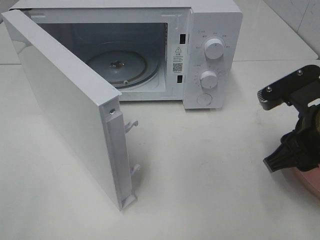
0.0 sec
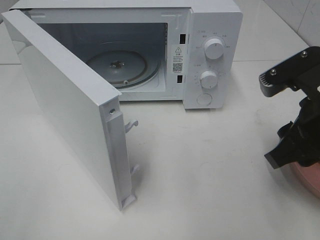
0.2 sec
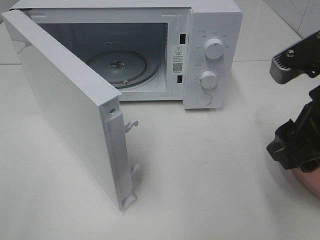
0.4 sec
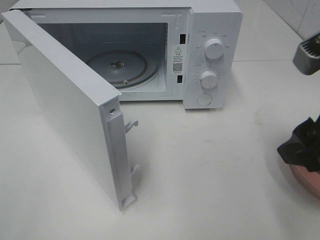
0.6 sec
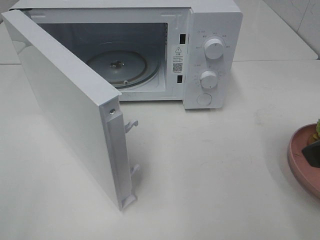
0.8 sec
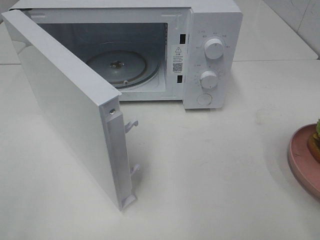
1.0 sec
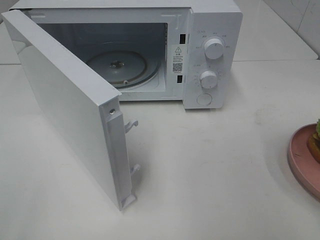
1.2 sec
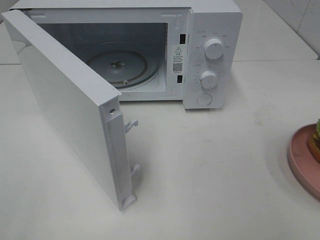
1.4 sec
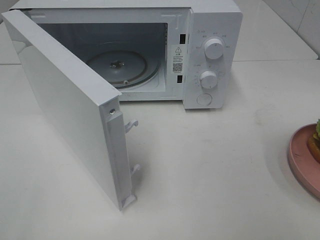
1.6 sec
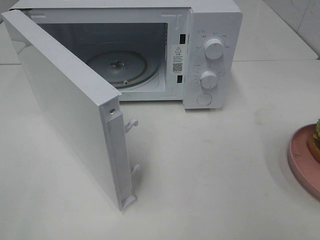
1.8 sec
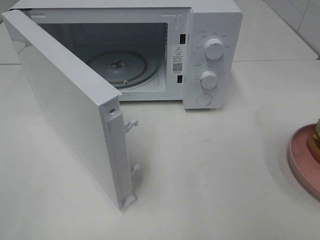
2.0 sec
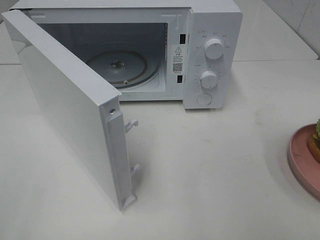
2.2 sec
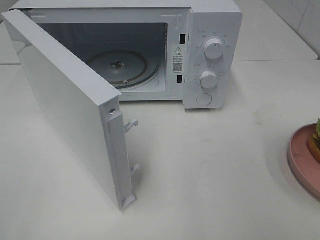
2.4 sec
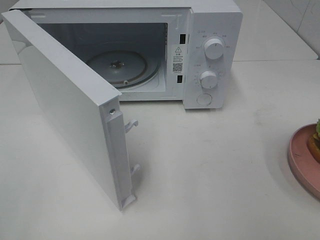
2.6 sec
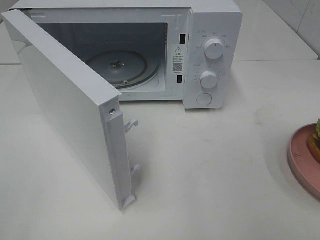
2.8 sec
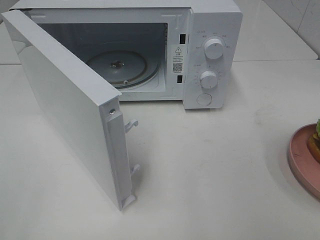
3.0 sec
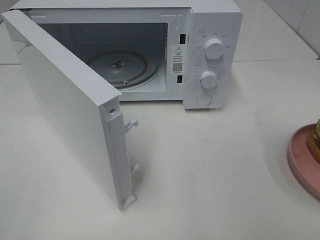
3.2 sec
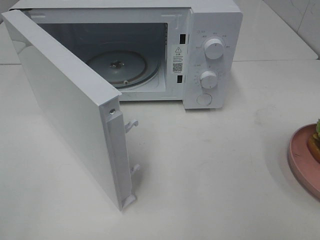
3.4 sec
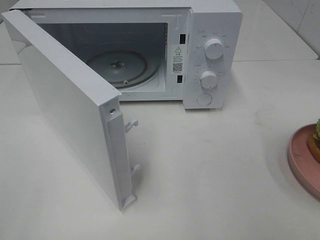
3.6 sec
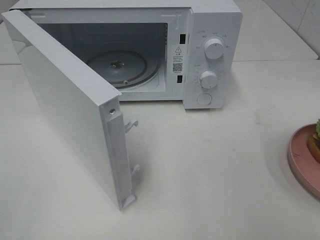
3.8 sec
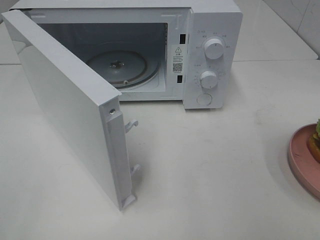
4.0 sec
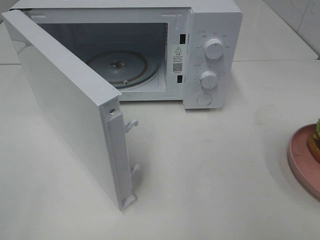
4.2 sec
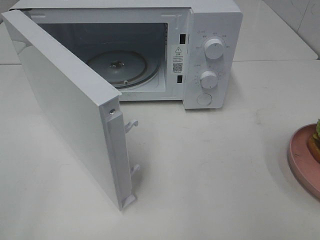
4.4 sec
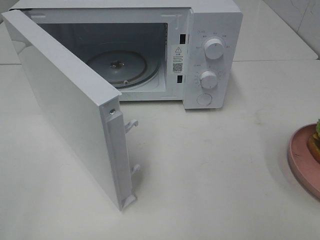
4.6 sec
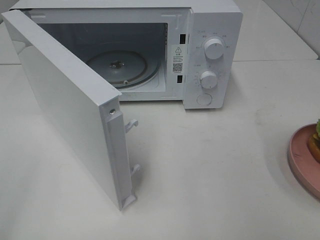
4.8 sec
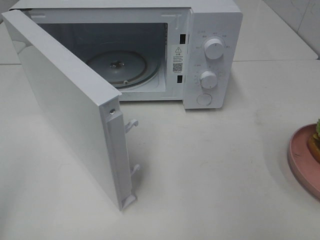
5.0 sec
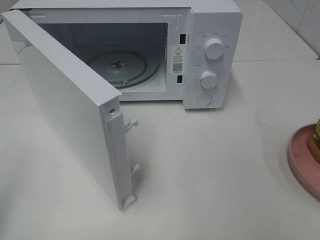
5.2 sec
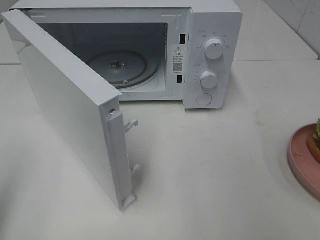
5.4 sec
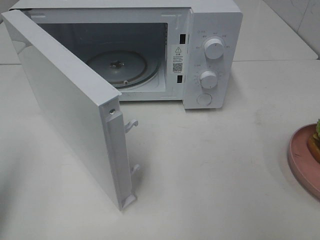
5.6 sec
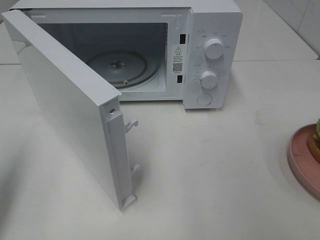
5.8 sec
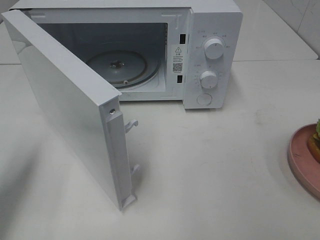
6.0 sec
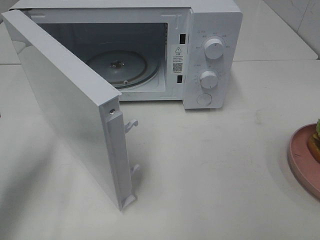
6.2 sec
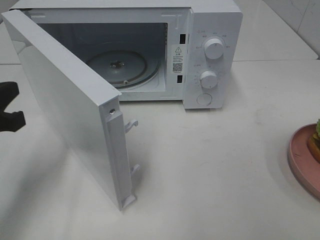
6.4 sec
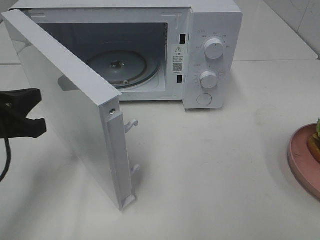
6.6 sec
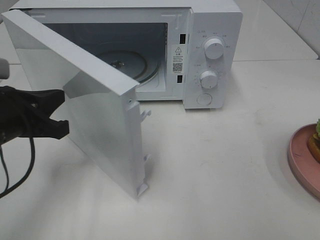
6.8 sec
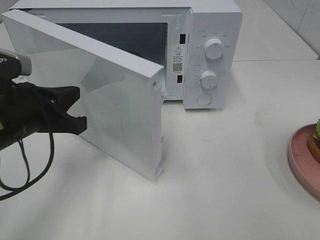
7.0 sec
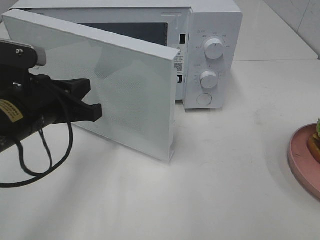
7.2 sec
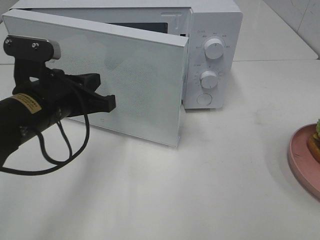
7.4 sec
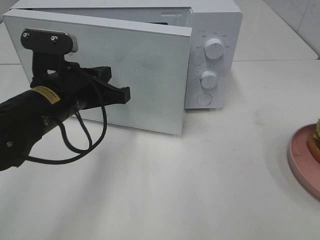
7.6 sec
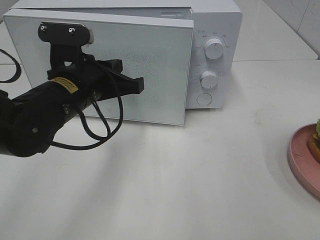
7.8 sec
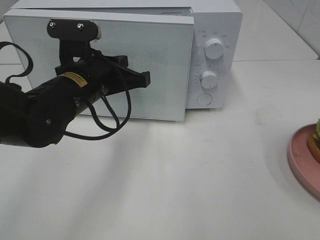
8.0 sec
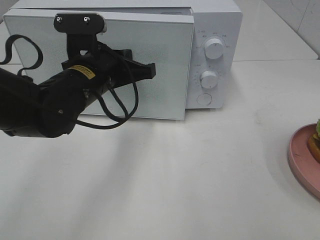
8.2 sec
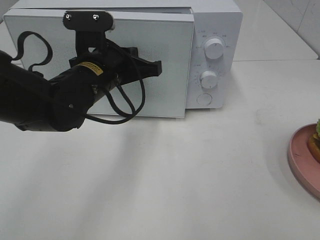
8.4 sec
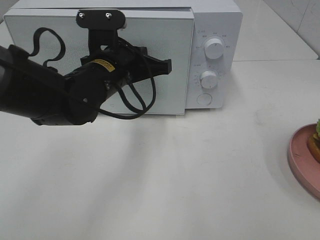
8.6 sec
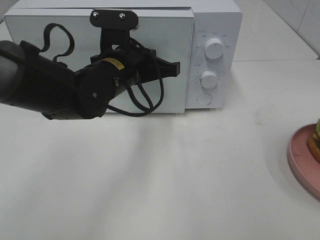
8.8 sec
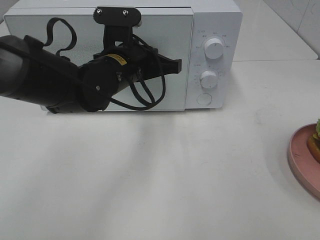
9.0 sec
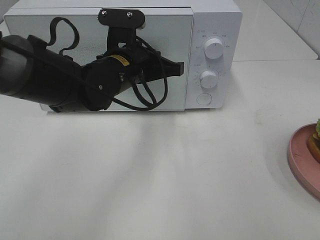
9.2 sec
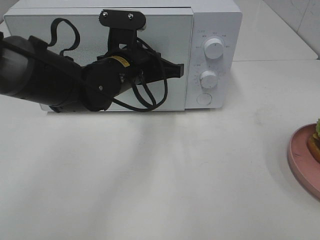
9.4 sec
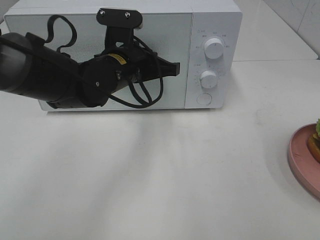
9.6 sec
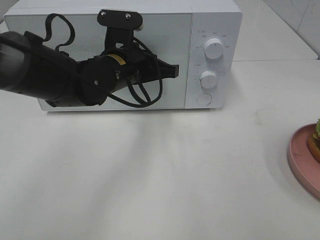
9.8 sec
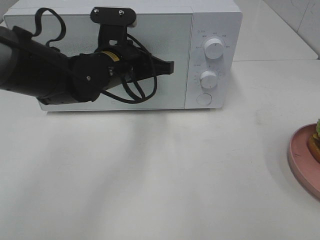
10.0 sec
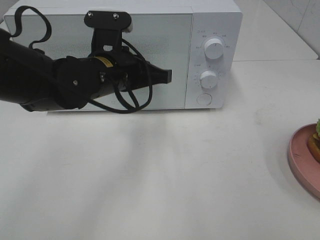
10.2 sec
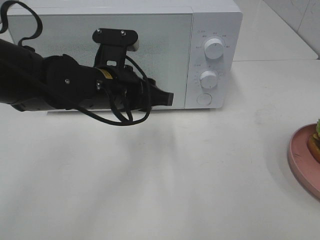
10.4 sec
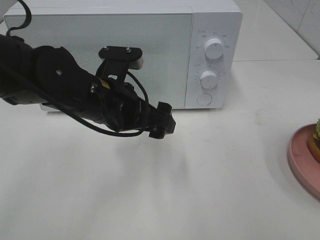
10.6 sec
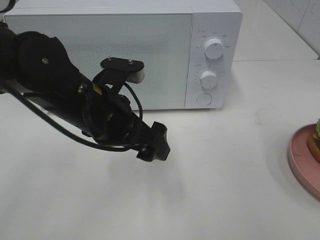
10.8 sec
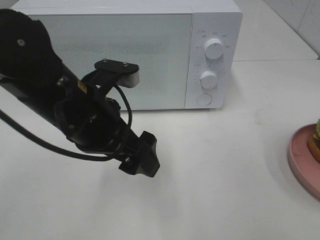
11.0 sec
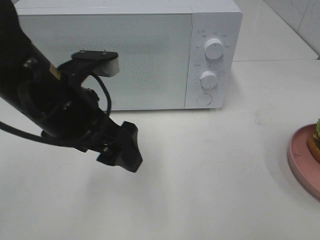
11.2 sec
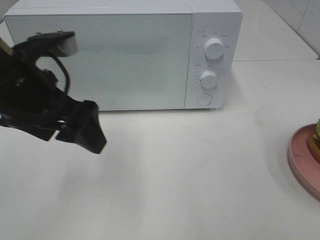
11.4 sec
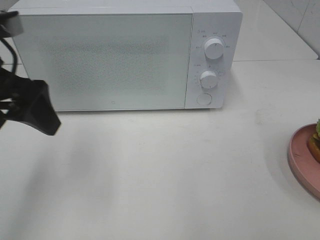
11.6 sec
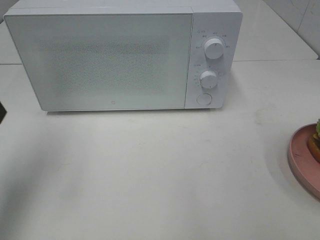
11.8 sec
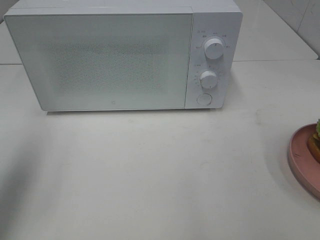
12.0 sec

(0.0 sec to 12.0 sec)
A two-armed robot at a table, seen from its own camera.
Task of the whole recording: Heat the burger.
Step, 0.0 sec - 10.4 sec: Left hand: close the microwave door.
0.0 sec - 1.6 sec: The right gripper moves backward, upward and to the right, roughly 20 cm.
4.4 sec - 6.0 sec: The left gripper heads forward and downward, covering some 20 cm, and closes.
6.0 sec - 7.6 sec: The left gripper heads to the right and forward, covering roughly 20 cm.
7.6 sec - 9.0 sec: The left gripper shifts some 10 cm to the right and forward.
9.0 sec - 10.4 sec: The left gripper opens up.
10.4 sec - 12.0 sec: The left gripper is displaced to the left and upward by some 25 cm, and opens.

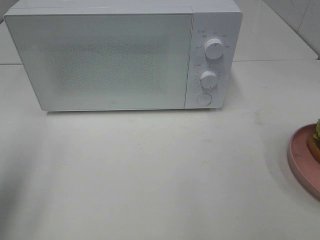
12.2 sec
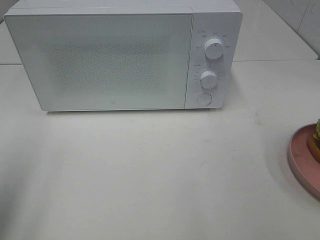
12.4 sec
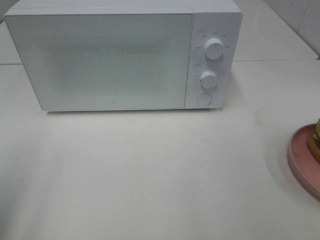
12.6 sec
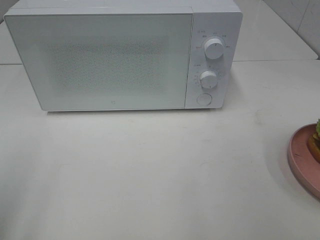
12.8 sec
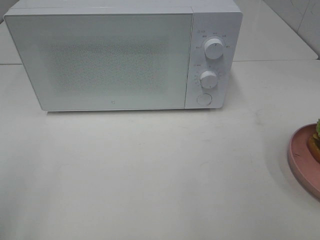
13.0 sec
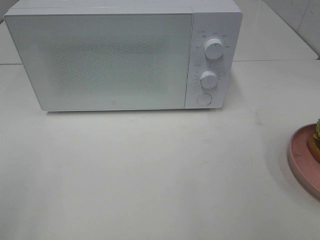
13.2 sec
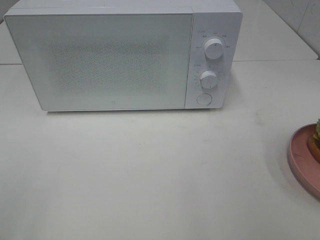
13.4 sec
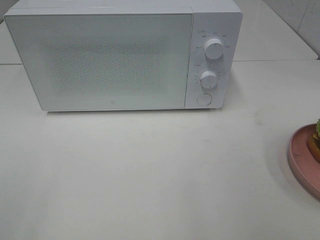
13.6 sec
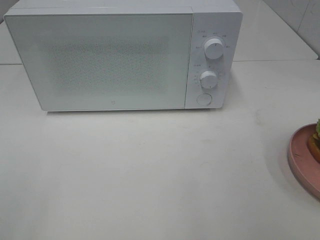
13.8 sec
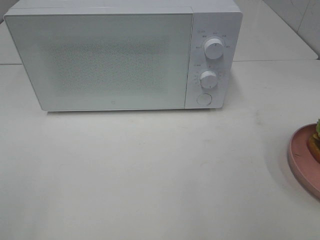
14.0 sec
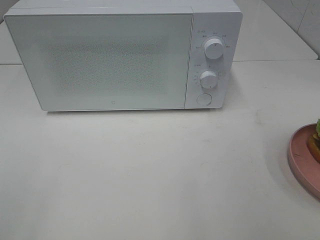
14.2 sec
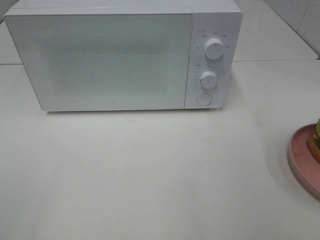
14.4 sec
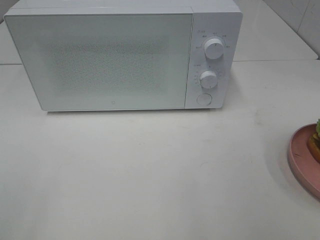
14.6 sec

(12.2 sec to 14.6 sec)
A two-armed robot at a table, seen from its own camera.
Task of the whole recording: Heat the burger.
12.2 sec - 13.4 sec: The left gripper travels backward by roughly 15 cm.
13.4 sec - 14.6 sec: The two grippers keep their place.

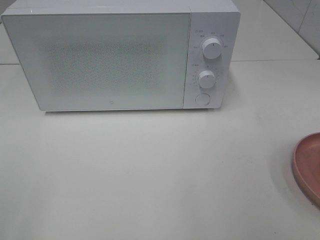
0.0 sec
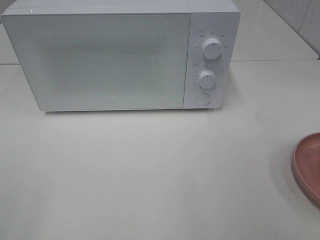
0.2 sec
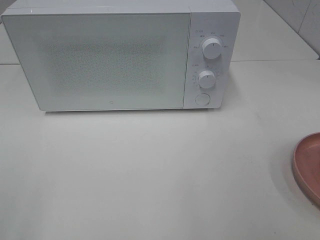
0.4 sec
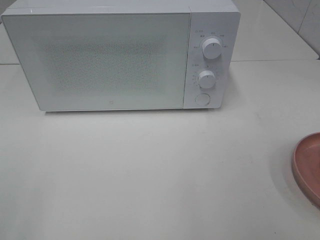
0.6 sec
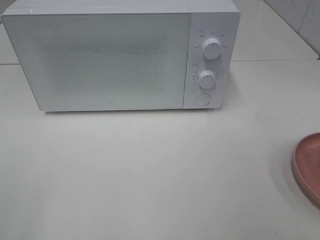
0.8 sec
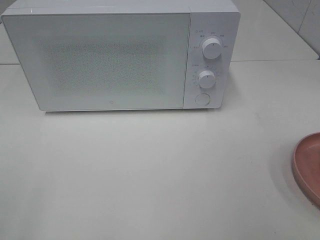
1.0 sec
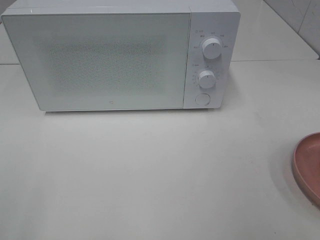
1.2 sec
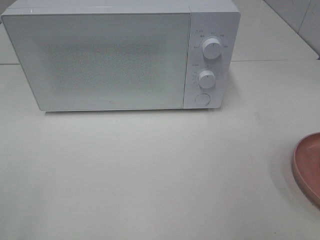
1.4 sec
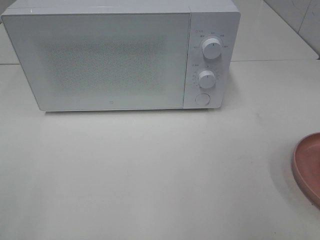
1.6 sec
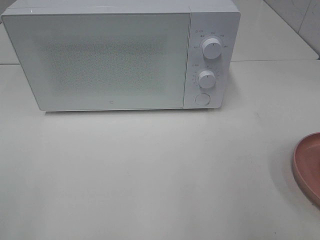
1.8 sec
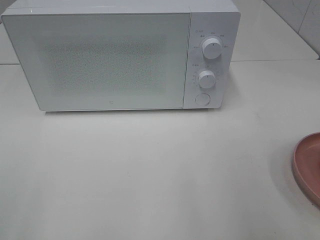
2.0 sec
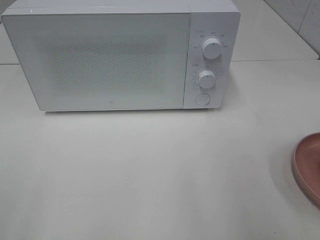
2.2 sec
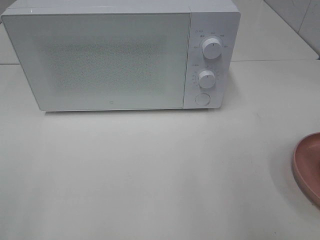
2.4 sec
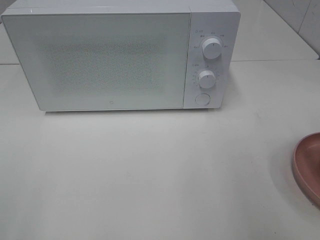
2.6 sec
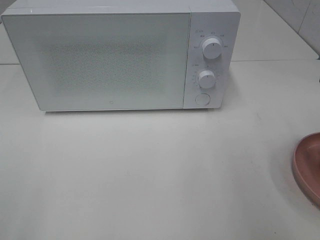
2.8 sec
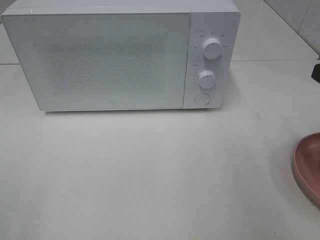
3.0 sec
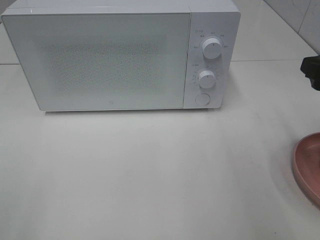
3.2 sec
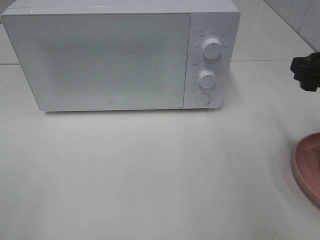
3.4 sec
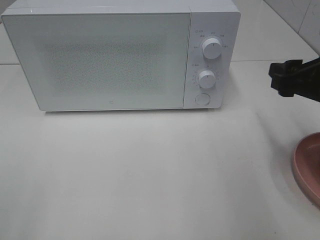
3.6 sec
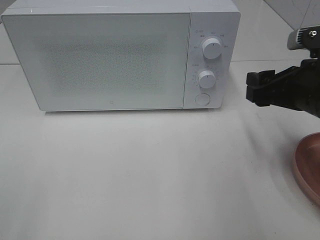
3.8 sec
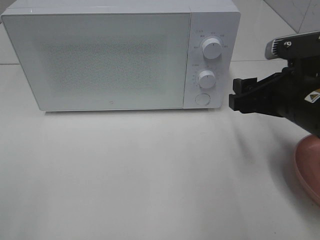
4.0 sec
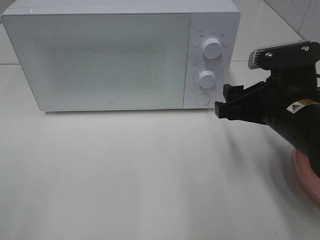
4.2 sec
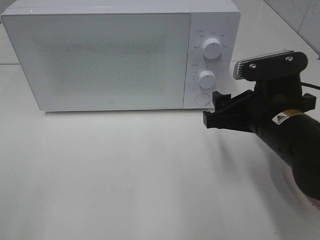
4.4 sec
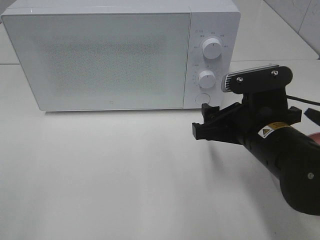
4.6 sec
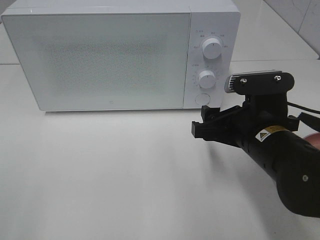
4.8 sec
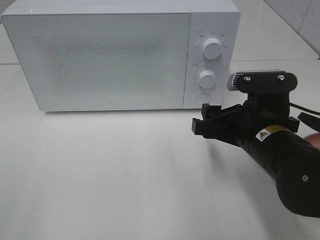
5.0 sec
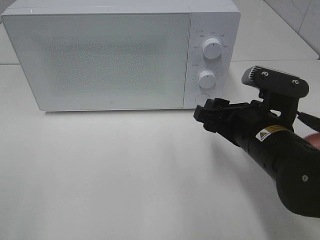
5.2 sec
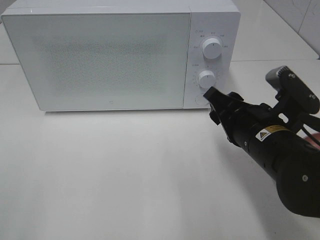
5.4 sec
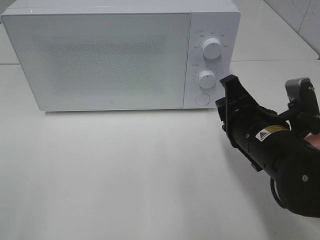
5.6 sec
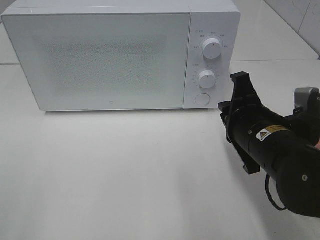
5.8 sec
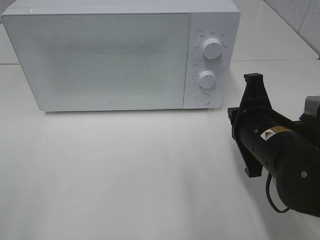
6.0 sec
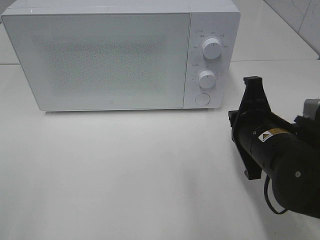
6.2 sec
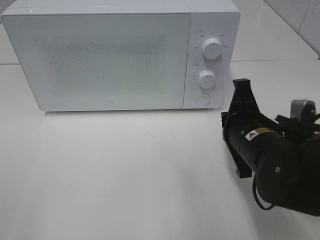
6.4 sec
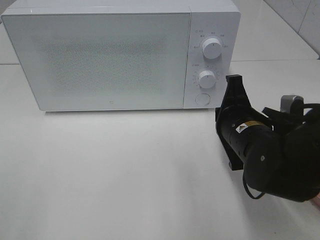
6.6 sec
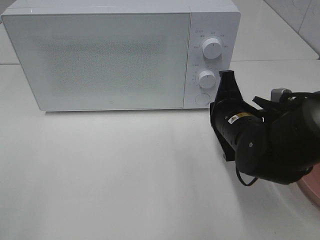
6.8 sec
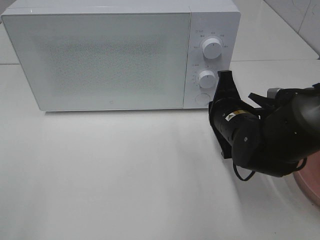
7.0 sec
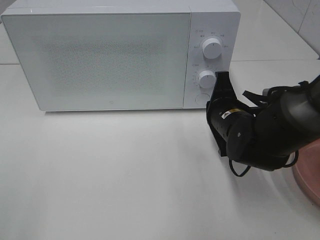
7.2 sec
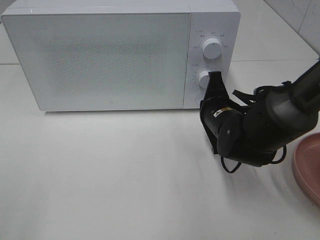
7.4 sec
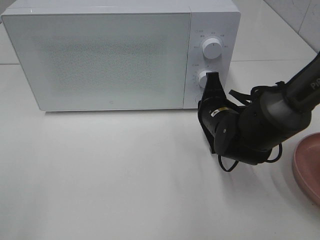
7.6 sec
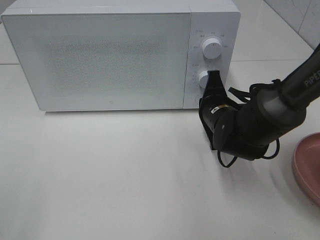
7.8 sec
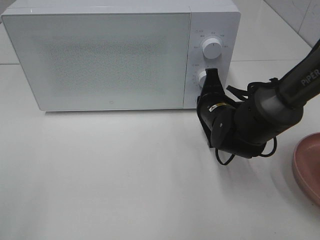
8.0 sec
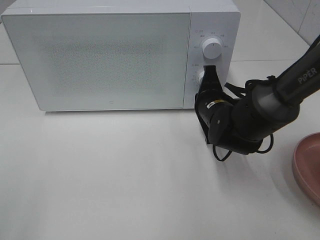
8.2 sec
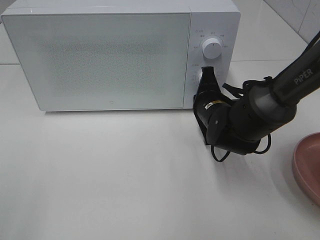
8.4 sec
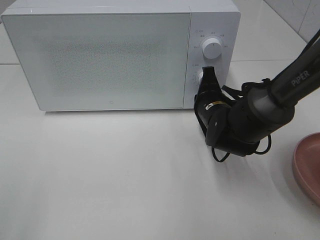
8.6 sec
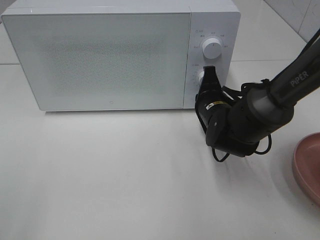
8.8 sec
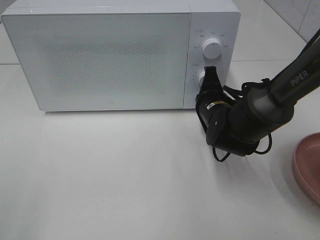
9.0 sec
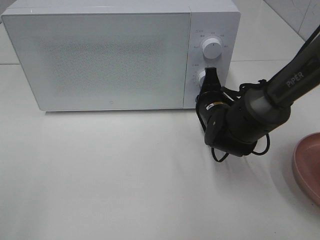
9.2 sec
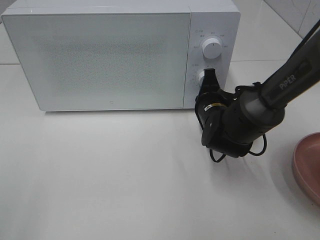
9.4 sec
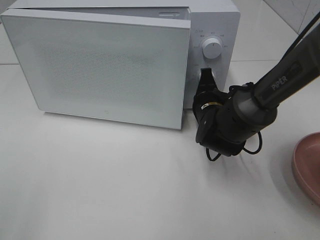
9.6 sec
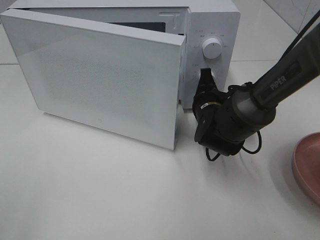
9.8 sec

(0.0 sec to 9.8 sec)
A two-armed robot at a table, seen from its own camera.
Task of the whole recording: Heat the burger.
2.8 sec - 4.2 sec: The right gripper moves to the left and downward, approximately 15 cm.
4.2 sec - 5.6 sec: The right gripper closes.
5.6 sec - 7.0 sec: The right gripper travels forward by roughly 5 cm, and closes up.
7.0 sec - 8.4 sec: The right gripper shifts roughly 5 cm forward.
8.4 sec - 9.8 sec: The grippers move only a little.
